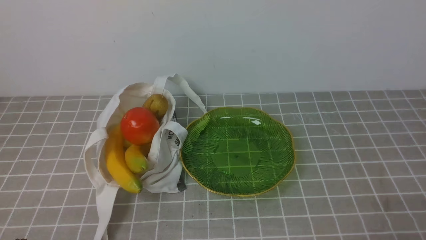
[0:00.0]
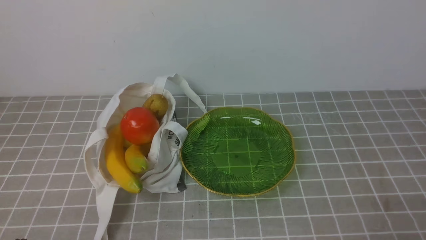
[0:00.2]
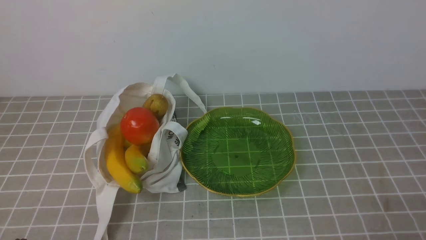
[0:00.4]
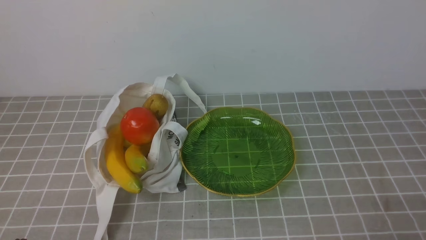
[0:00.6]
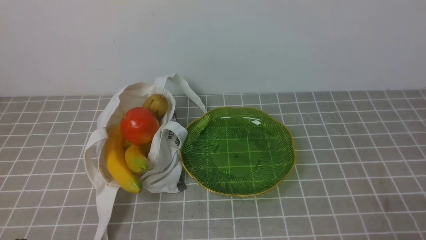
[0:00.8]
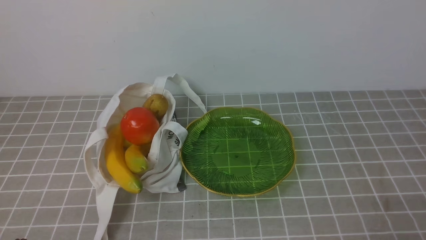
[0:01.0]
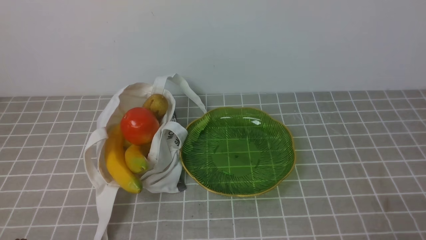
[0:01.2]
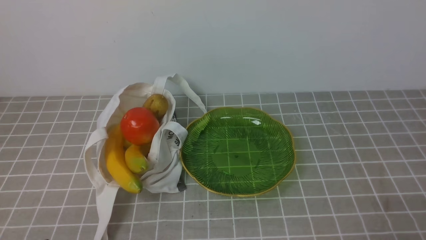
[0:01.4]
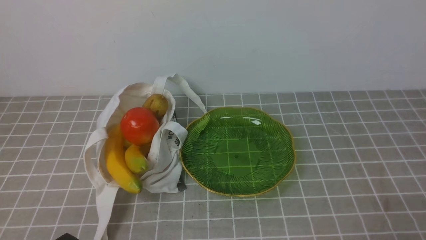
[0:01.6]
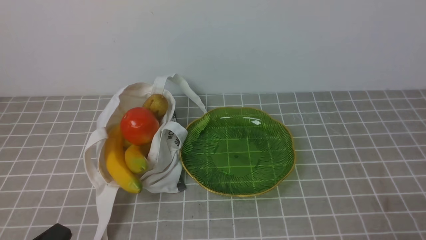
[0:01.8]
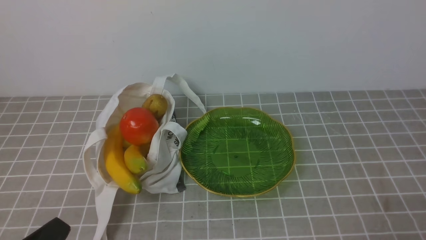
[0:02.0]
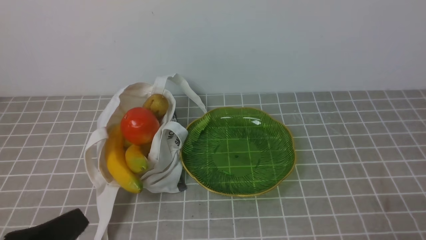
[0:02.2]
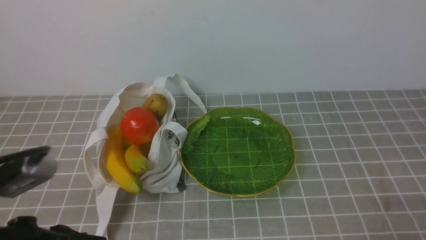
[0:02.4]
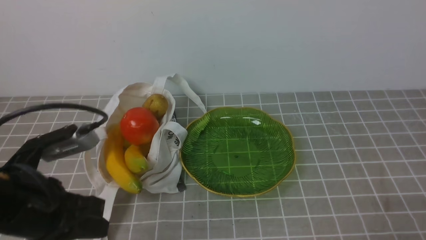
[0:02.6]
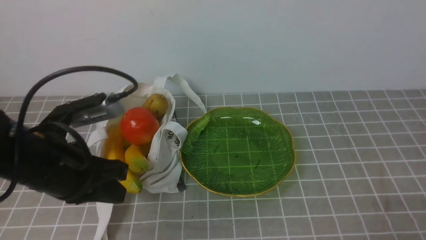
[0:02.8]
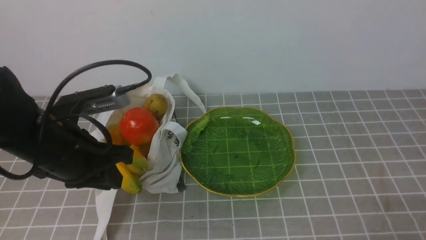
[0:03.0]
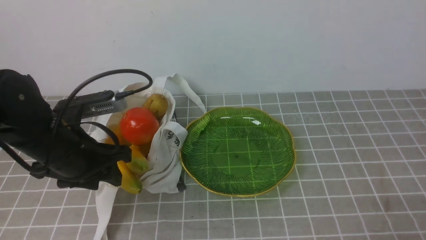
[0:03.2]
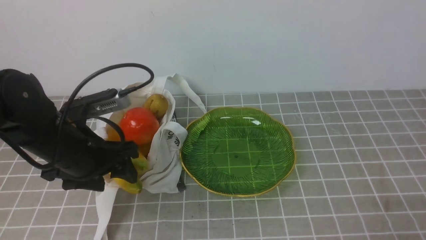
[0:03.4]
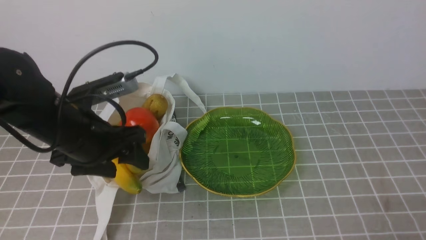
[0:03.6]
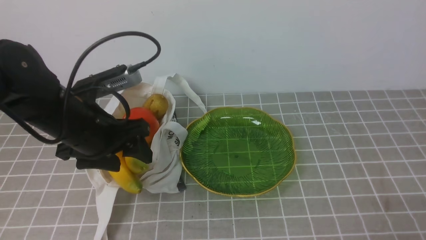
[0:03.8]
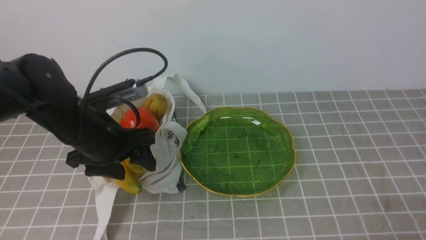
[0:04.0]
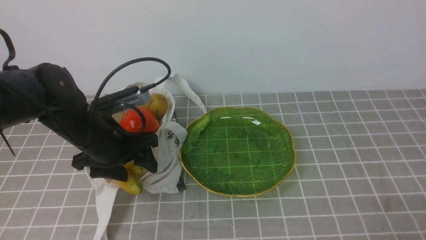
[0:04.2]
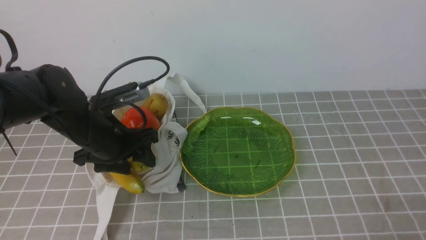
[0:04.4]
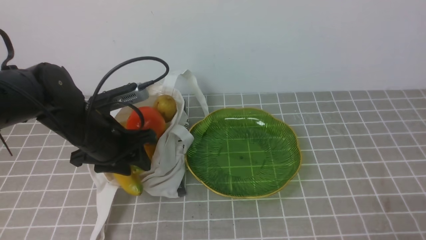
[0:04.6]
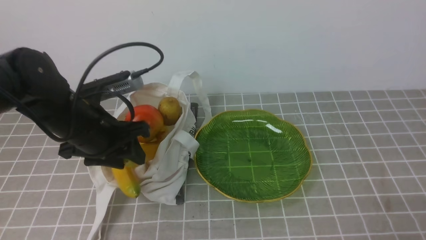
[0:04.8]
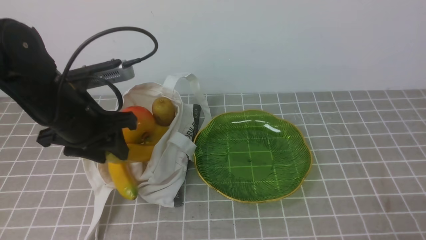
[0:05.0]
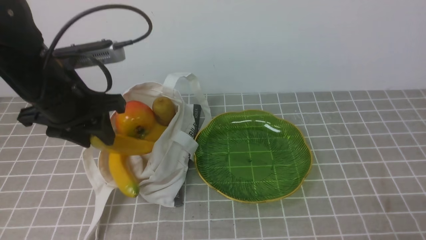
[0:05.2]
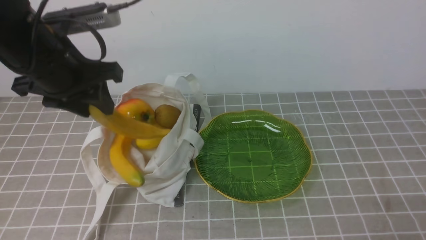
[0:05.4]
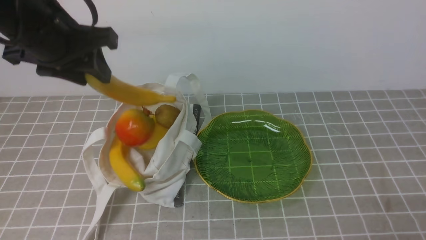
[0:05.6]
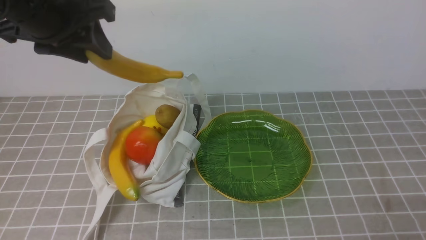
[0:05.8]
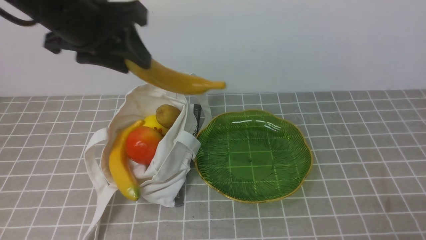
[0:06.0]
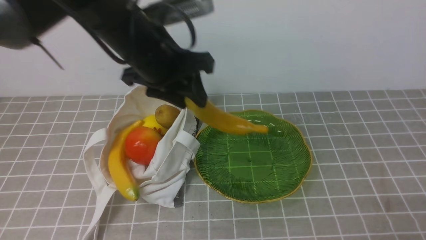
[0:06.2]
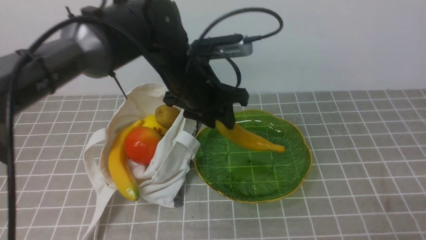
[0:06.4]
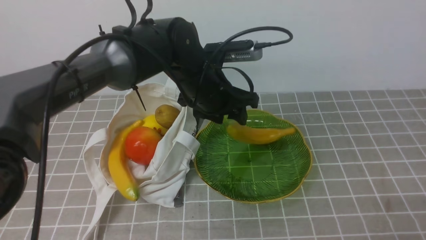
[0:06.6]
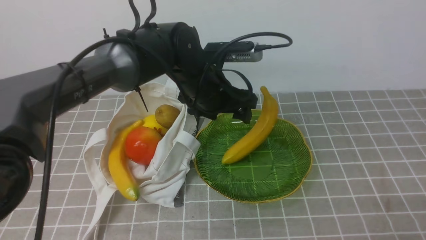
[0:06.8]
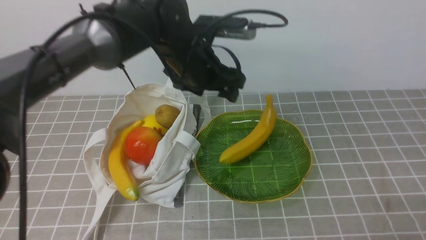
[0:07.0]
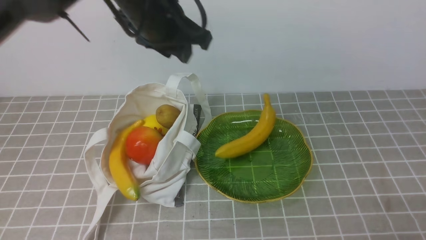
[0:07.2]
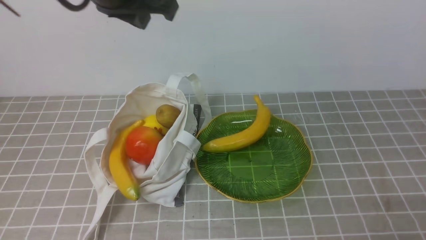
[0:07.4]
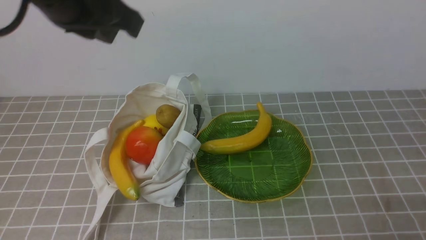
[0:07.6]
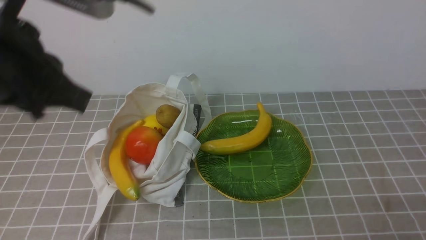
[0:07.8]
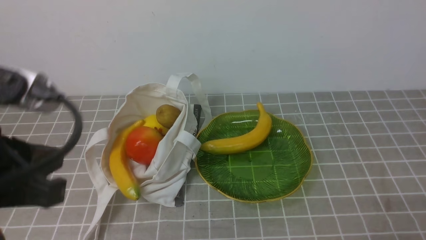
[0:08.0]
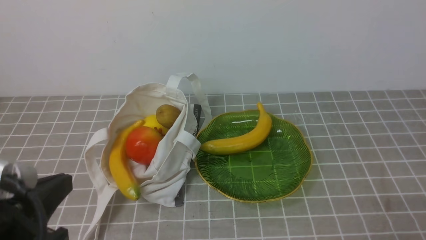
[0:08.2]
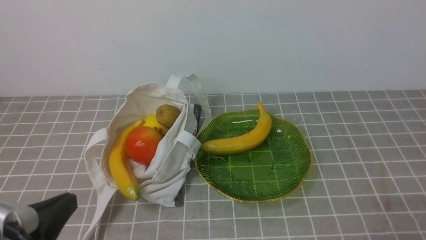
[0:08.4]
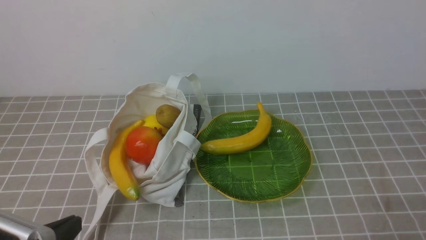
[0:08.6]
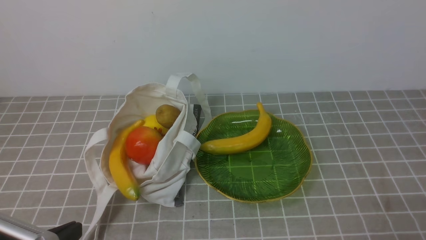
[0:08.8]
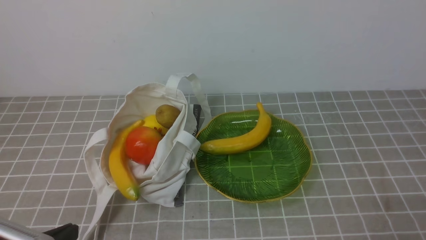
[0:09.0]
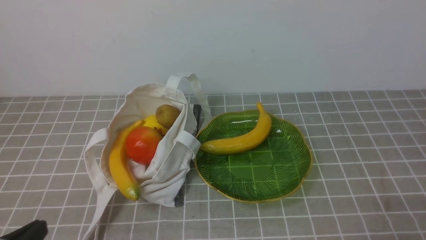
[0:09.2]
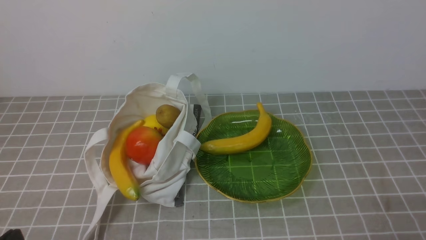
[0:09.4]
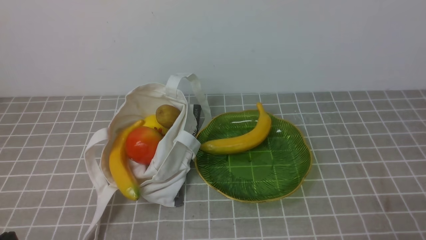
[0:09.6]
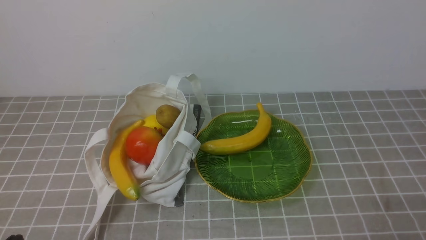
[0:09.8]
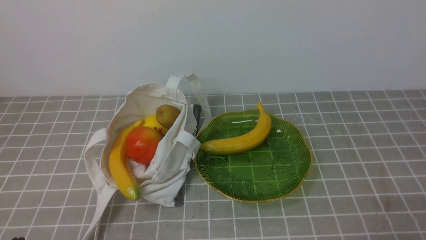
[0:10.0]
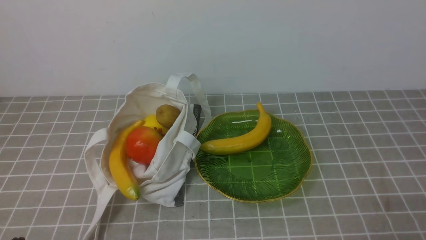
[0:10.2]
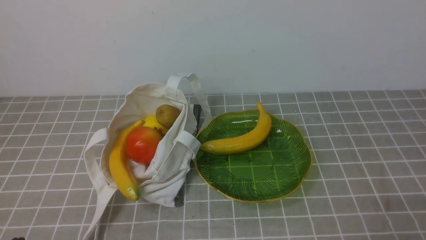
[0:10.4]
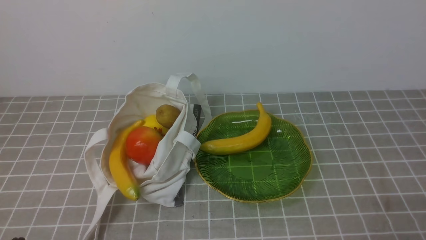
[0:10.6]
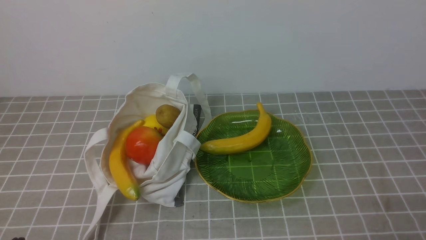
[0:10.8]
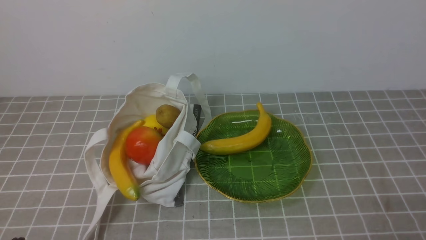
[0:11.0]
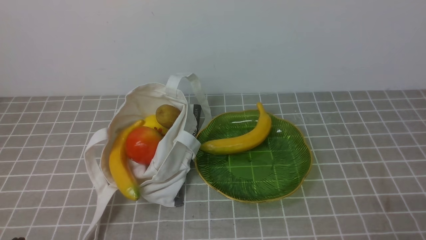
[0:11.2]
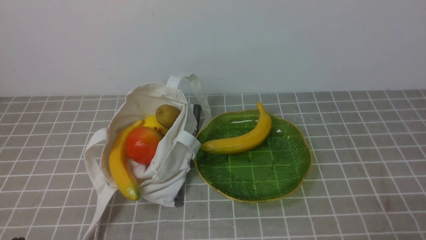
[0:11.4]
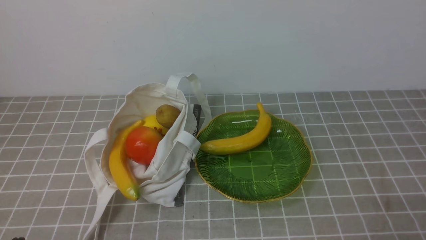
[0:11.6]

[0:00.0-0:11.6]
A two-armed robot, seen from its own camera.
Step, 0:00.0 to 0:04.8: use the left arm to grab a banana from the bag.
Step, 0:05.2 to 0:06.8: use the left arm to put the banana into the empty plate on the right.
0:01.4 to 0:02.8: The left gripper shifts about 20 cm forward and upward.
0:02.8 to 0:04.4: The left gripper shifts some 10 cm forward and downward, and opens.
0:04.4 to 0:05.8: The left gripper goes roughly 20 cm upward.
0:05.8 to 0:07.2: The left gripper moves to the right, roughly 10 cm, and opens, then closes again.
0:07.2 to 0:08.8: The left gripper shifts approximately 35 cm backward, downward and to the left, and closes.
0:08.8 to 0:10.2: The left gripper ends up roughly 5 cm from where it was.
0:10.2 to 0:11.6: Both grippers stay put.
